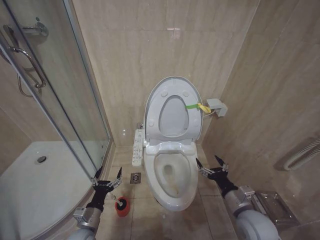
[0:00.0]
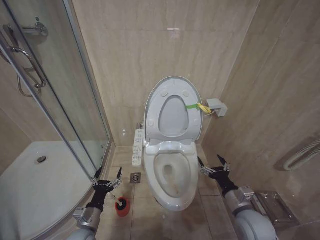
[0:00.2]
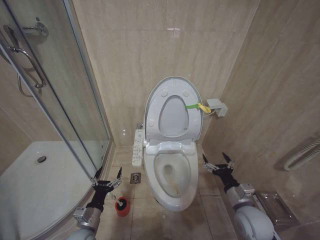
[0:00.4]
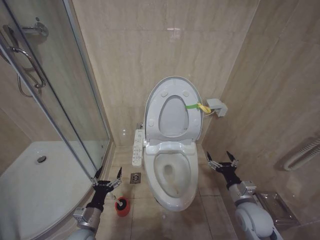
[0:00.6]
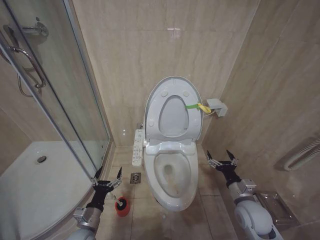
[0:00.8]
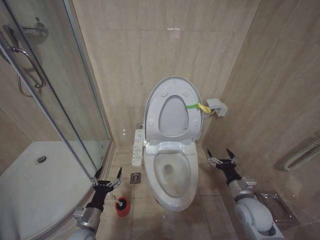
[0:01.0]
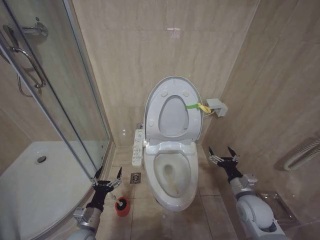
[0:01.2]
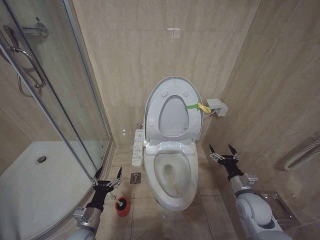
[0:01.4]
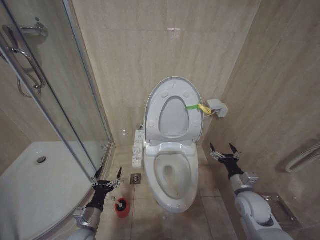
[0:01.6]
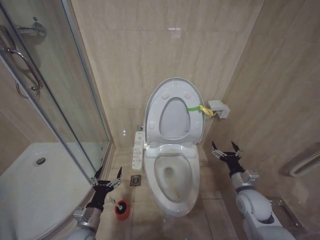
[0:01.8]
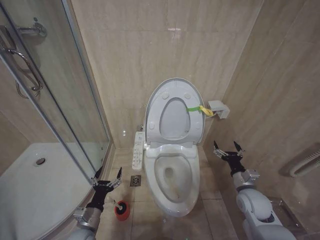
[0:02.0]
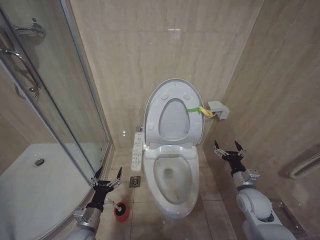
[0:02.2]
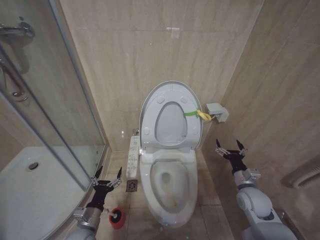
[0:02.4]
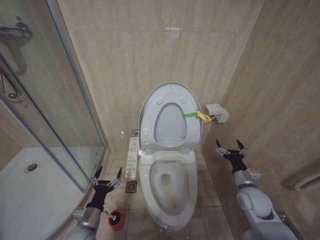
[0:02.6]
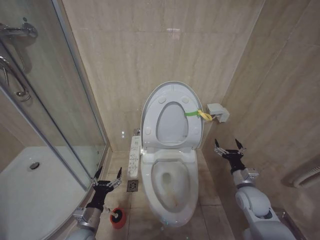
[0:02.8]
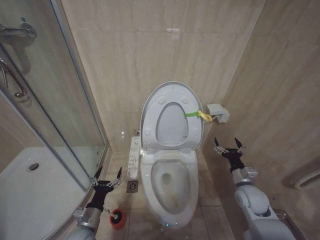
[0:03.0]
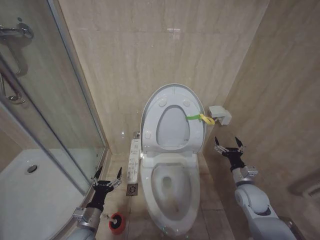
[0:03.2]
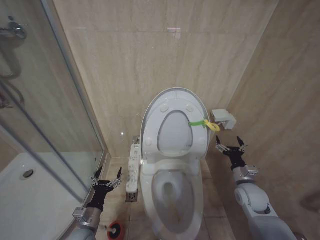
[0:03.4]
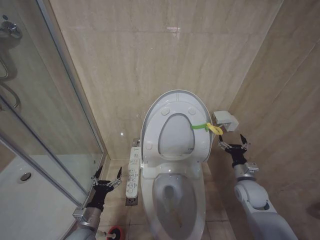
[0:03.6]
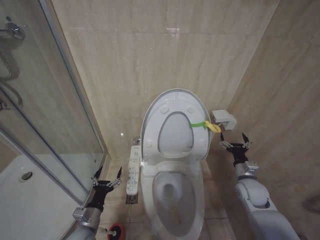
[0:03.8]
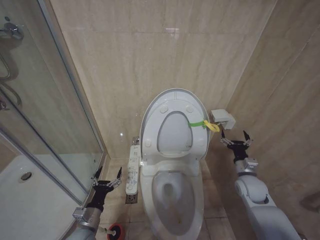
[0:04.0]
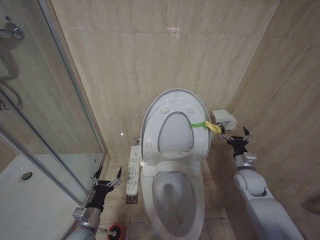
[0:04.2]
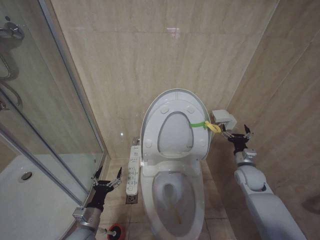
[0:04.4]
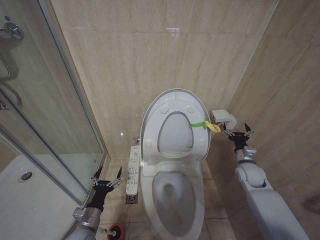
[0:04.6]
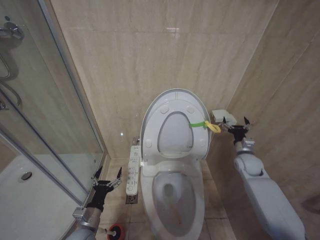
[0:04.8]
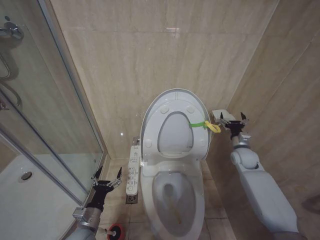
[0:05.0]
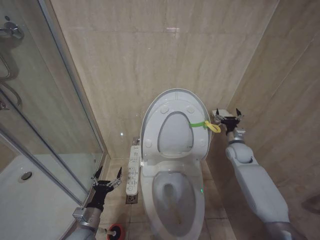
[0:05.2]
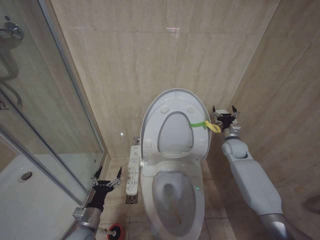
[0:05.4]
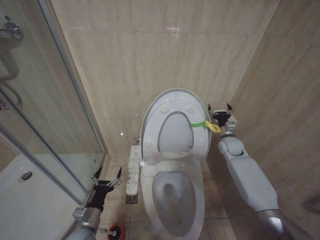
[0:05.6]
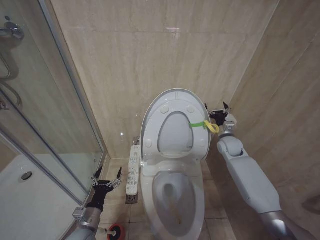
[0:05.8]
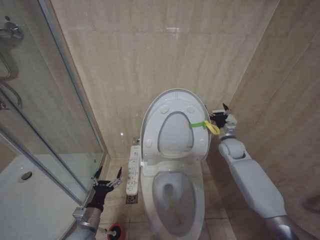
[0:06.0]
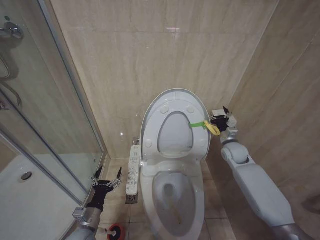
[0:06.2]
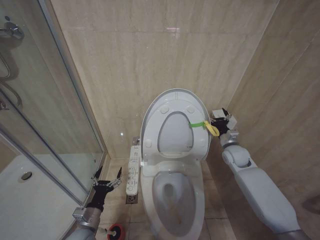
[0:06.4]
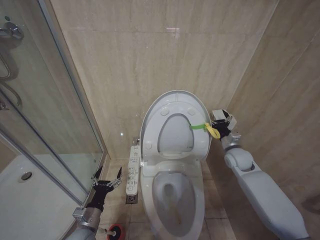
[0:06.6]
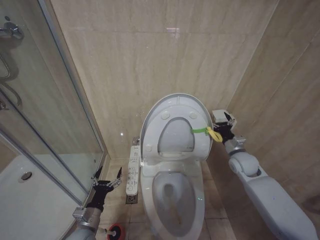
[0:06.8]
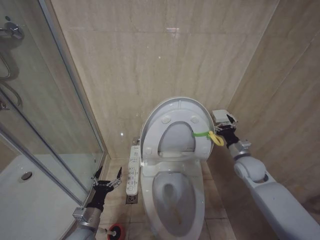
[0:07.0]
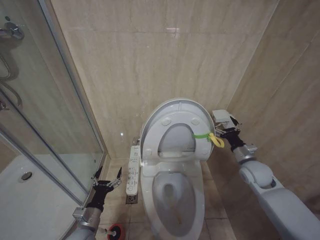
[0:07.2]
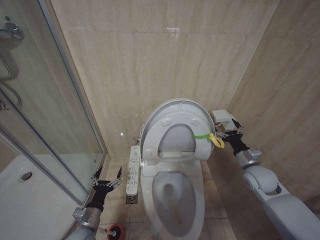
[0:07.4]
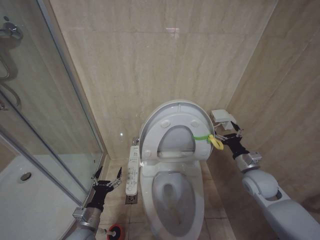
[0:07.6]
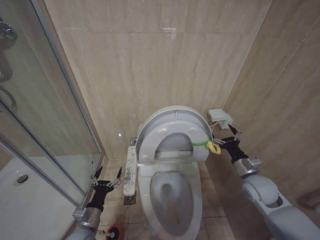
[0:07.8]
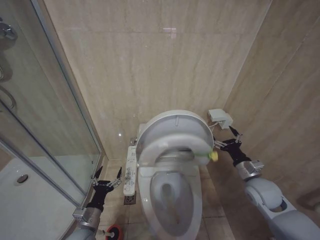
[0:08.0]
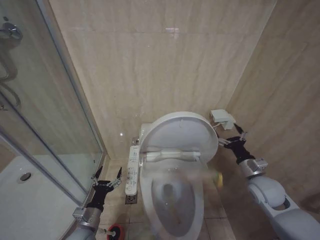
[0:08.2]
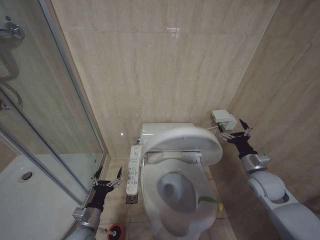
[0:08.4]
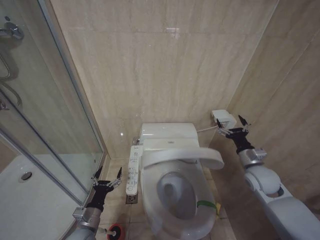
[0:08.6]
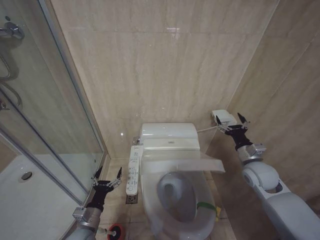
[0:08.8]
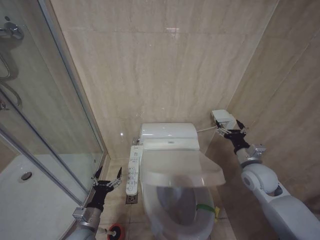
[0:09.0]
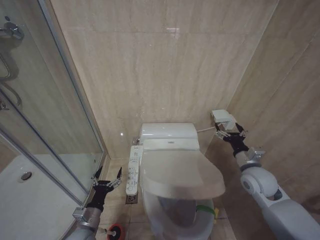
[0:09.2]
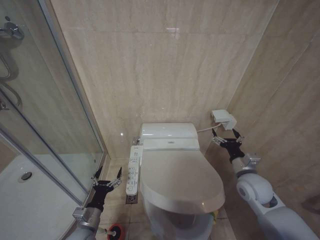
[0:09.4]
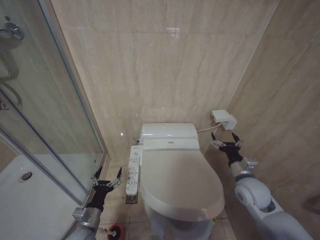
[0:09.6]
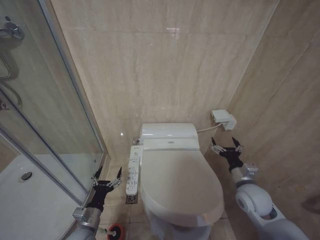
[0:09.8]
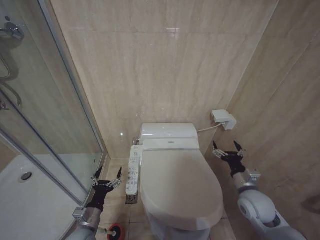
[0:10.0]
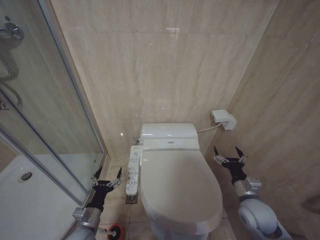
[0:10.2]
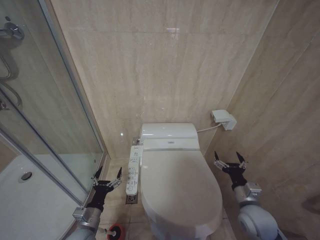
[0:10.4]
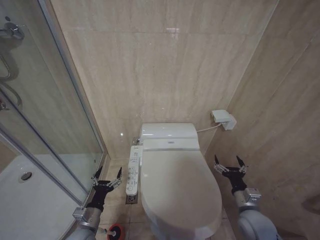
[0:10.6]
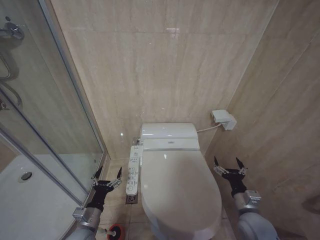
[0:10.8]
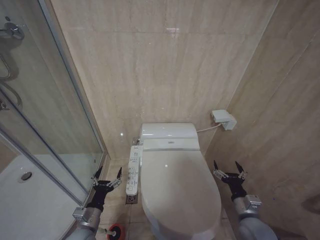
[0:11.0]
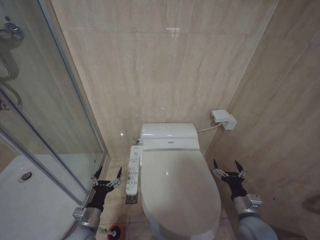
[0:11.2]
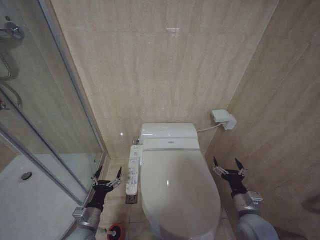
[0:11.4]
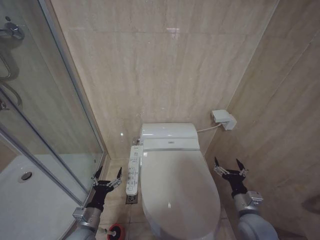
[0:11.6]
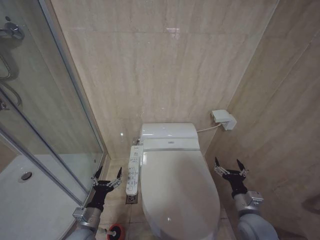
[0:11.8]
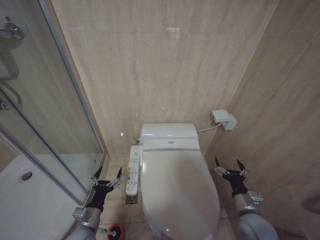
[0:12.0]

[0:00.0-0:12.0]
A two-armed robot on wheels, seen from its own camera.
Task of the whole recording: Open the toilet lid, clean the toilet bowl with a toilet brush, close the toilet lid, and flush.
0:00.0 to 0:01.6: The right gripper is displaced forward by approximately 5 cm.
0:01.6 to 0:03.0: The grippers move only a little.
0:03.0 to 0:04.4: The right gripper travels forward by approximately 5 cm.
0:04.4 to 0:06.0: The right gripper shifts roughly 15 cm forward and upward.
0:06.0 to 0:07.6: The right gripper heads backward, covering approximately 15 cm.
0:07.6 to 0:09.0: The grippers make only small movements.
0:09.0 to 0:10.4: The right gripper goes about 15 cm backward and downward.
0:10.4 to 0:12.0: The grippers make only small movements.

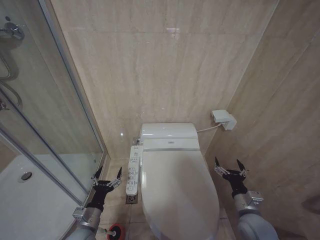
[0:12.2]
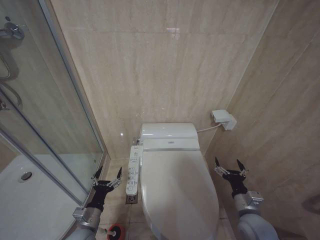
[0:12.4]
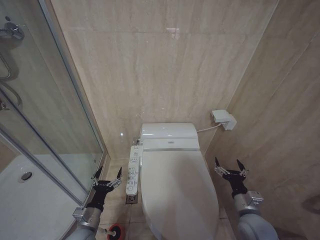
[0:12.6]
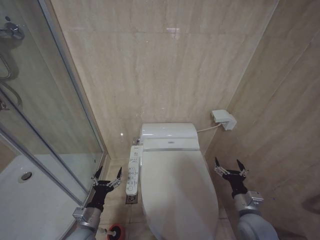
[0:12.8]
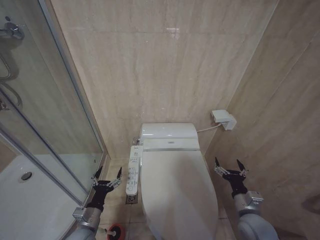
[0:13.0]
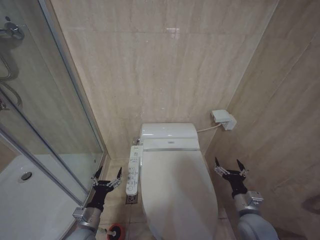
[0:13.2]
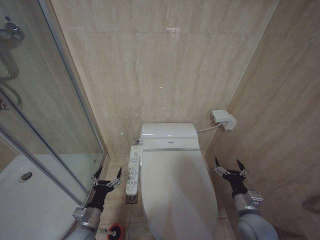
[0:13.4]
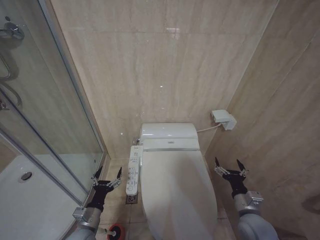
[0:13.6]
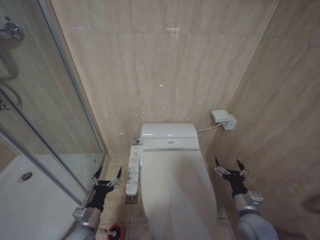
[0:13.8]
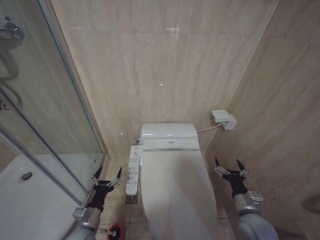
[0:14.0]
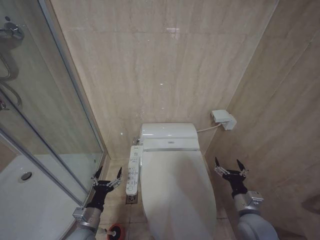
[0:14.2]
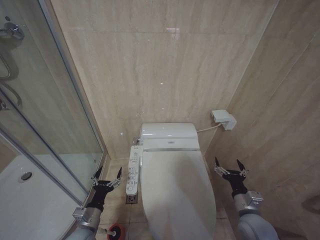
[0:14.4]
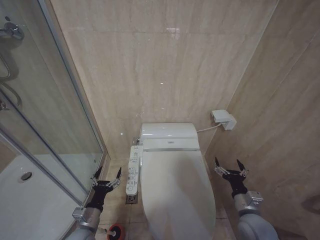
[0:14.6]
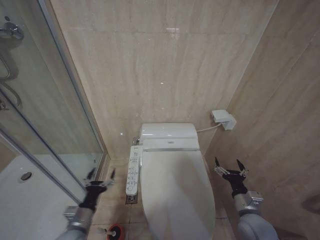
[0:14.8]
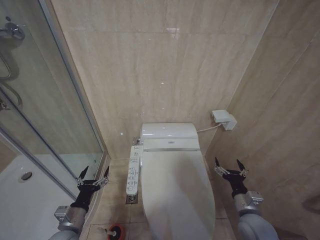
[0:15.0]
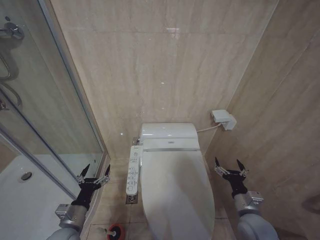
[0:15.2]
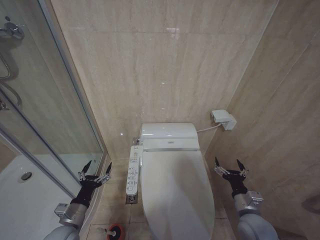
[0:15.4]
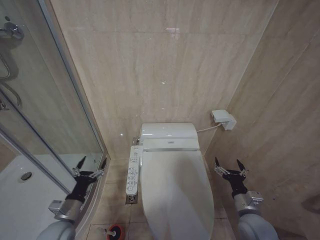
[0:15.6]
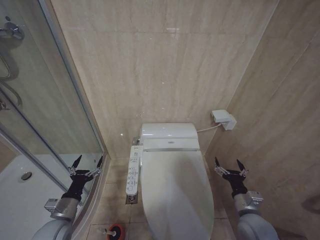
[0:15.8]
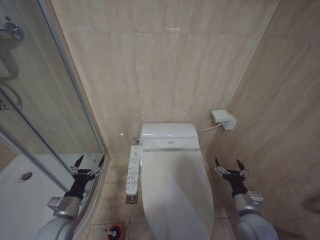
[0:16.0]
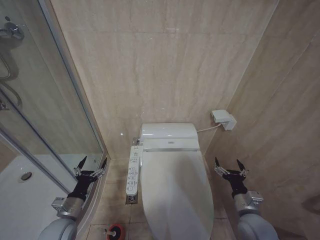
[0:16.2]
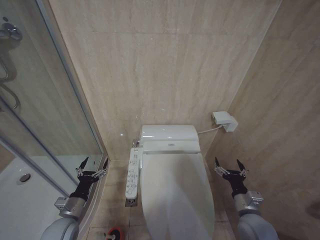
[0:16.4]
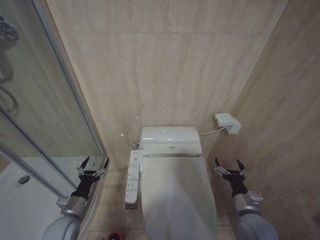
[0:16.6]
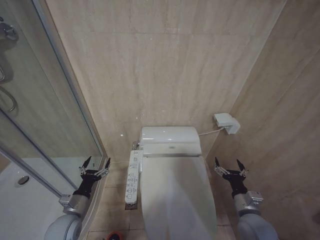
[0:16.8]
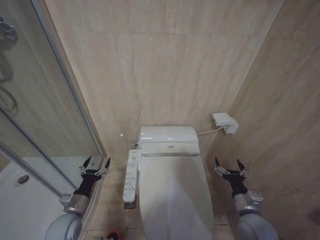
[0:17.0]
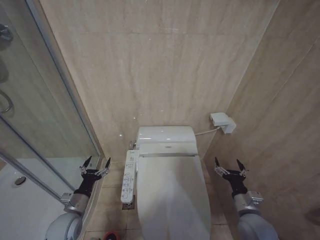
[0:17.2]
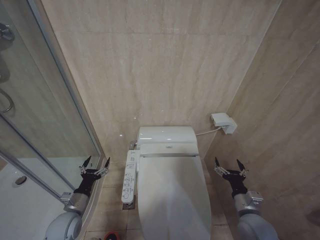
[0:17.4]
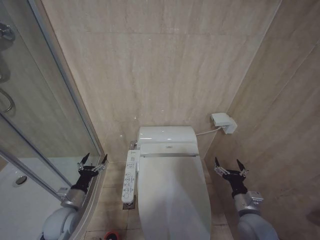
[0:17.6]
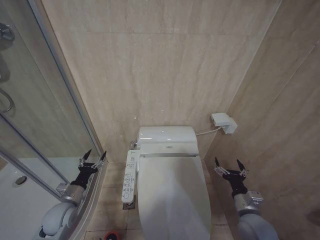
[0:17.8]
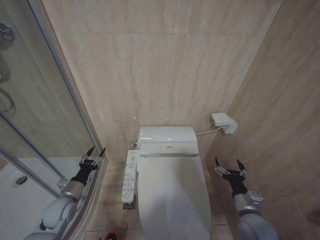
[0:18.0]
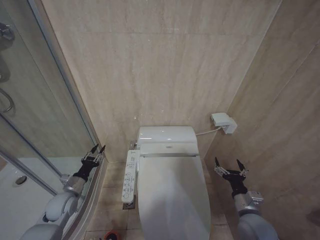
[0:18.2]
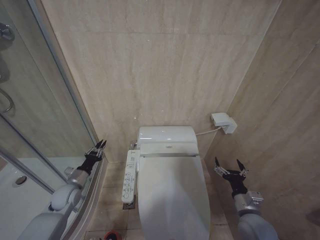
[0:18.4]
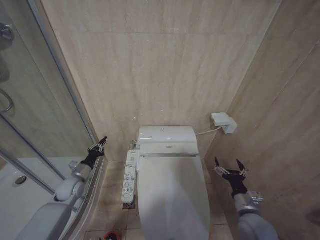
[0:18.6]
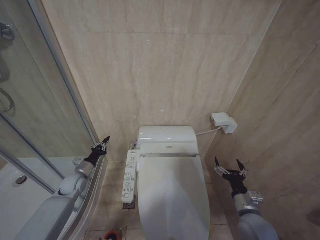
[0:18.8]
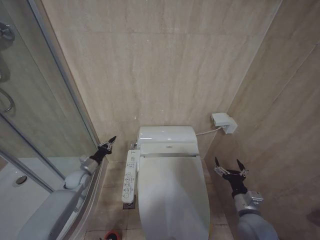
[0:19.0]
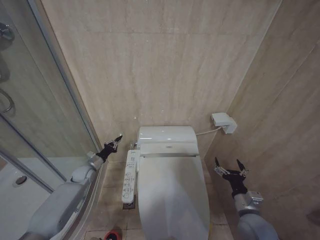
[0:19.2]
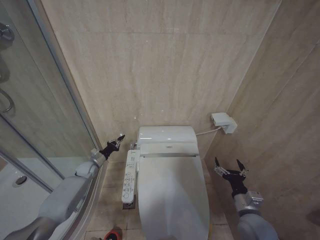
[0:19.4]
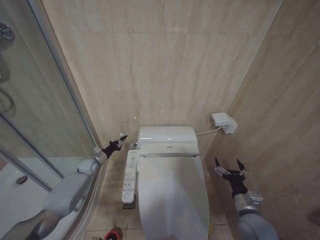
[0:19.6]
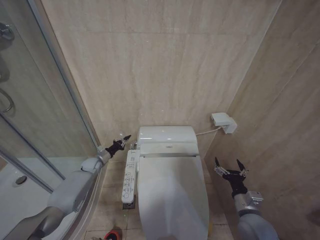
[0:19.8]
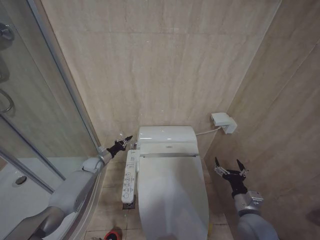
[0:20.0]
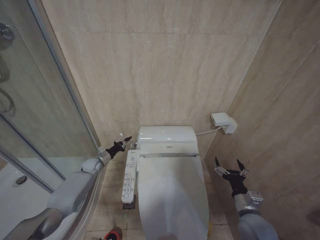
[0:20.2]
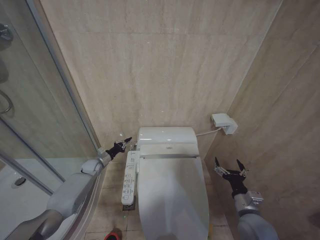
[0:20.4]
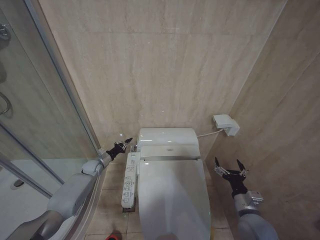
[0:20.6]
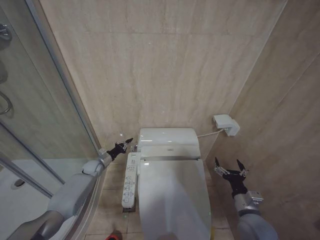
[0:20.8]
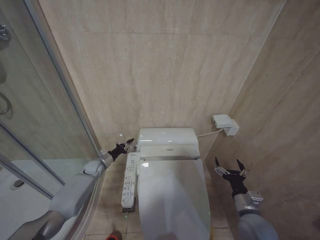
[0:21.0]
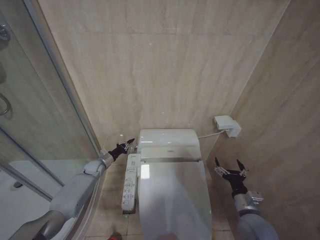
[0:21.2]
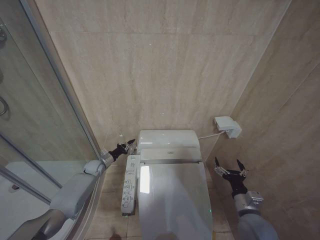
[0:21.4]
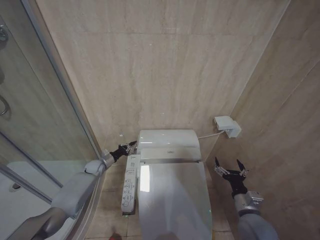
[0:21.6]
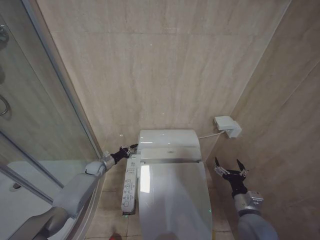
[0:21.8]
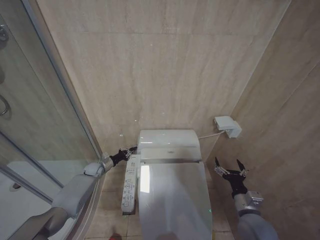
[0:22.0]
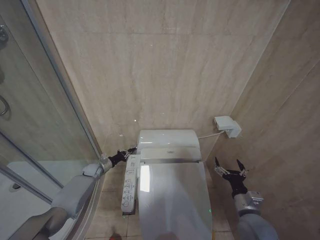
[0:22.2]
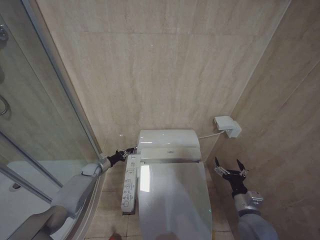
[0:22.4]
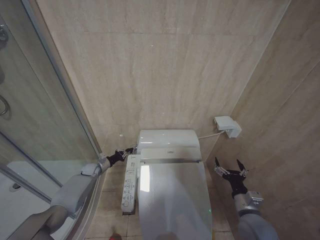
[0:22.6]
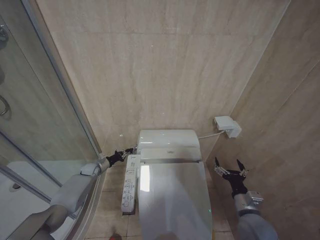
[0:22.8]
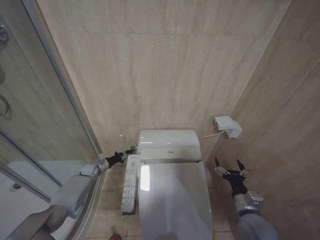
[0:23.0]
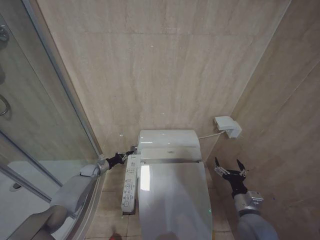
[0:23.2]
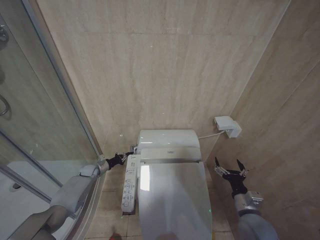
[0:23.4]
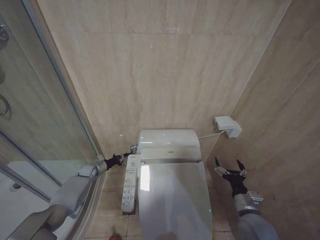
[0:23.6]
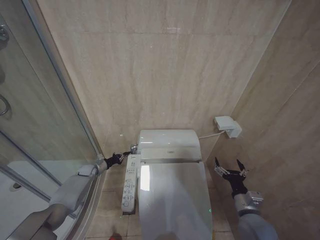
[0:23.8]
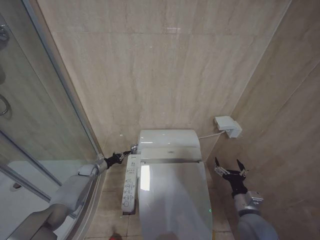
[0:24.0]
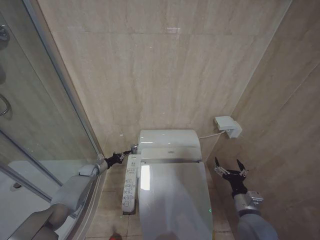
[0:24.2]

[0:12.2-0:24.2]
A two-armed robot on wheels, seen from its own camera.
Task of the whole recording: Open the toilet lid, clean the toilet bowl with a toilet brush, close the toilet lid, and flush.
0:12.2 to 0:13.8: The two grippers keep their place.
0:13.8 to 0:15.2: The left gripper ends up about 5 cm from where it was.
0:15.2 to 0:16.6: The grippers move only a little.
0:16.6 to 0:18.2: The left gripper shifts about 10 cm forward.
0:18.2 to 0:19.8: The left gripper moves forward, approximately 20 cm, and closes its fingers.
0:19.8 to 0:22.6: The grippers make only small movements.
